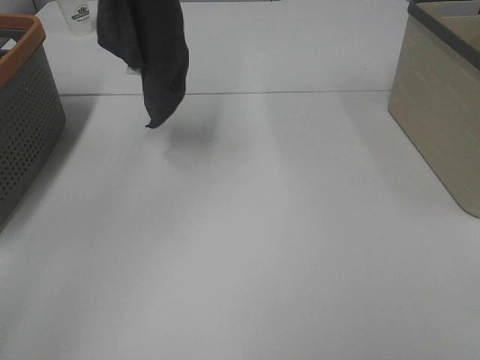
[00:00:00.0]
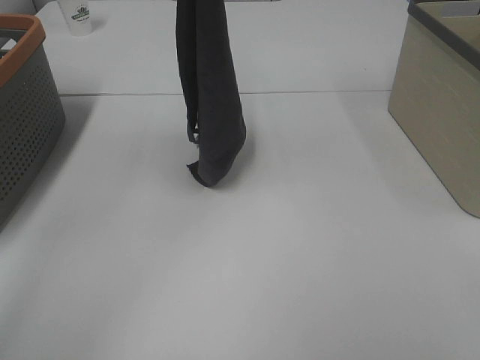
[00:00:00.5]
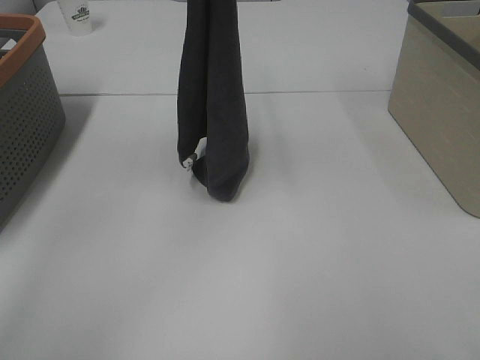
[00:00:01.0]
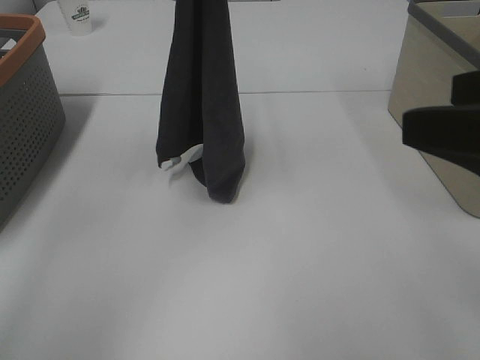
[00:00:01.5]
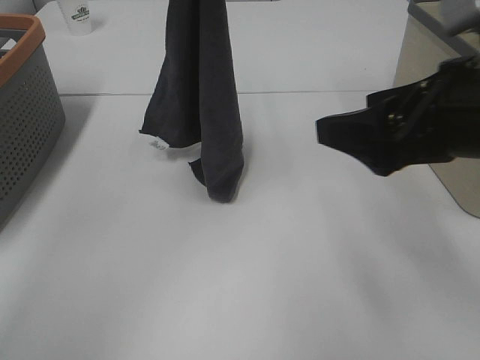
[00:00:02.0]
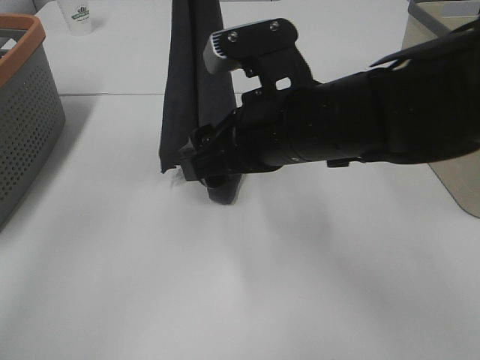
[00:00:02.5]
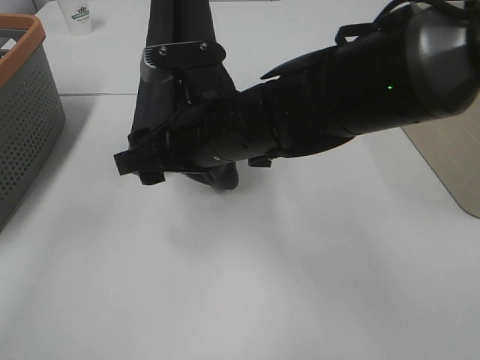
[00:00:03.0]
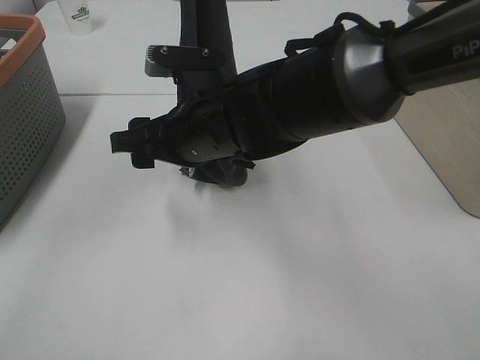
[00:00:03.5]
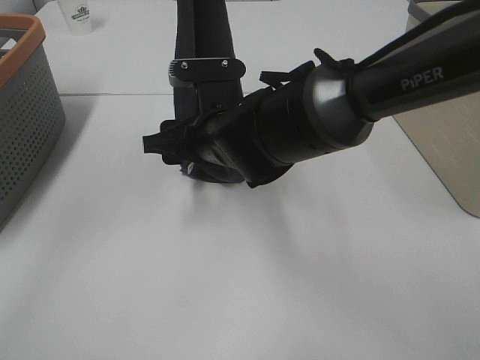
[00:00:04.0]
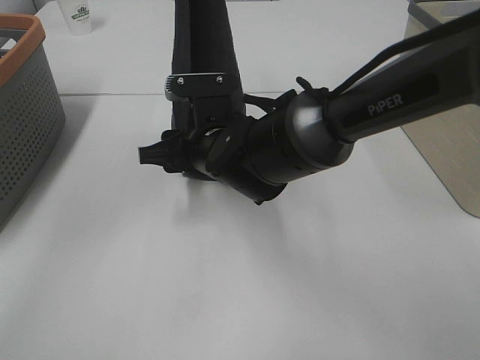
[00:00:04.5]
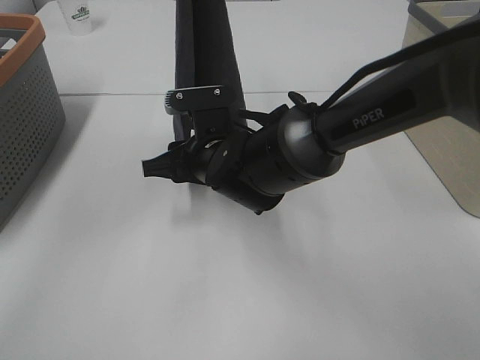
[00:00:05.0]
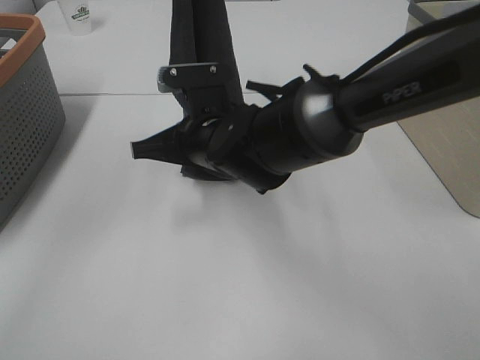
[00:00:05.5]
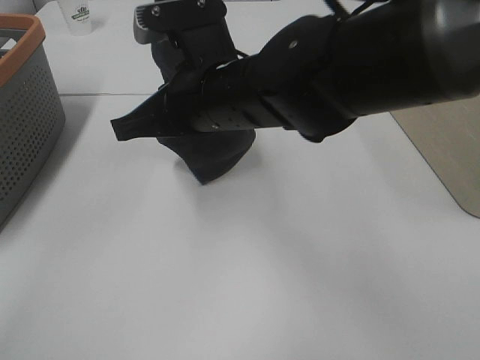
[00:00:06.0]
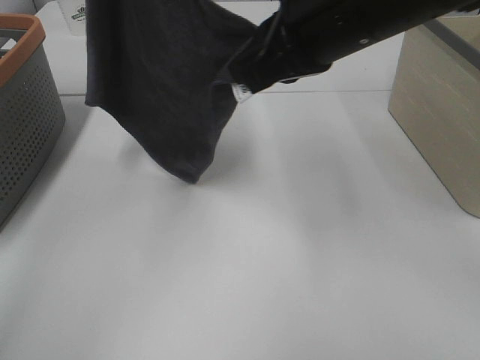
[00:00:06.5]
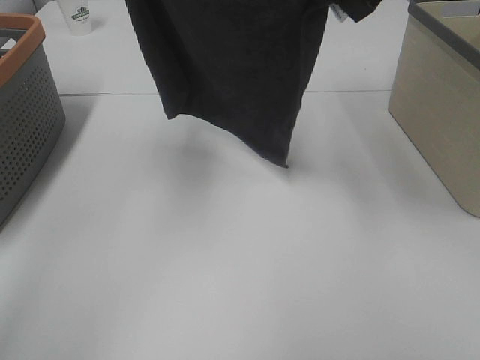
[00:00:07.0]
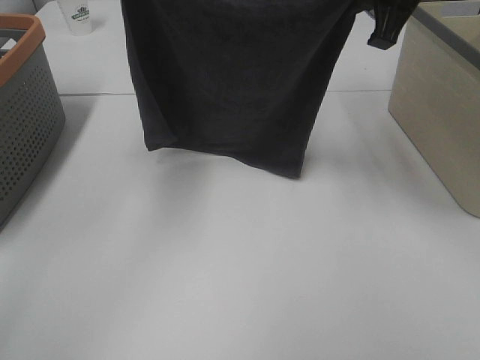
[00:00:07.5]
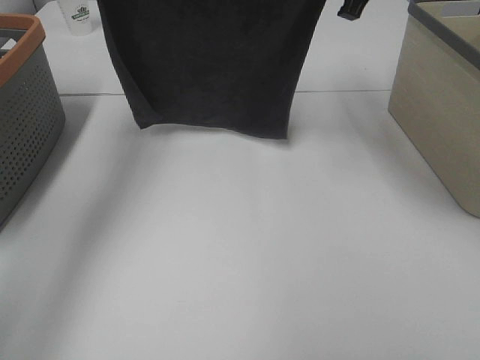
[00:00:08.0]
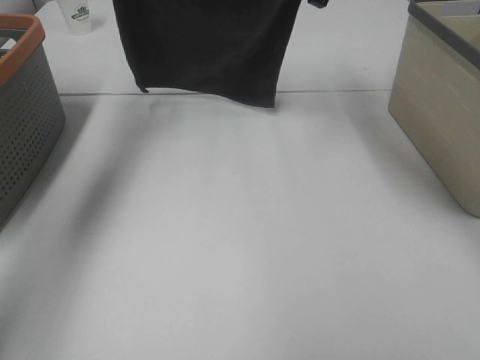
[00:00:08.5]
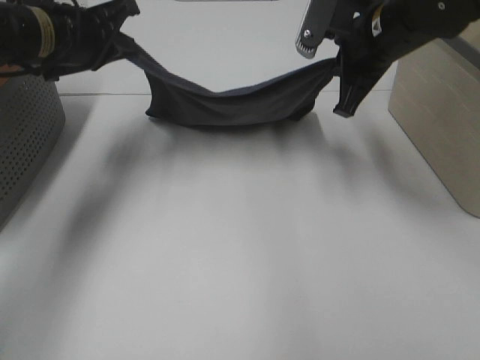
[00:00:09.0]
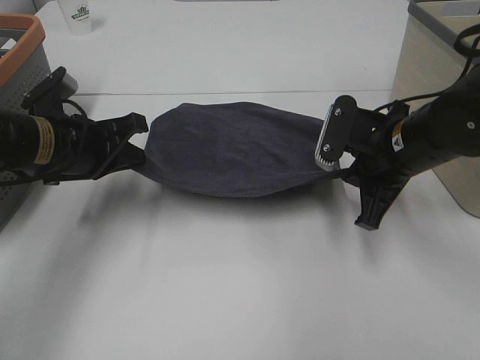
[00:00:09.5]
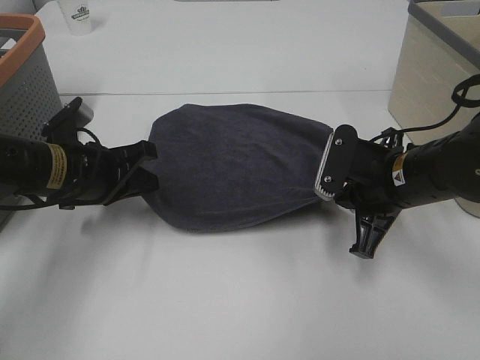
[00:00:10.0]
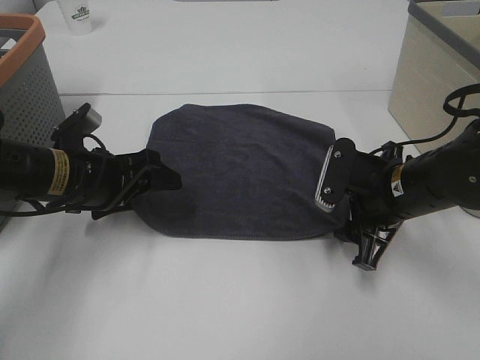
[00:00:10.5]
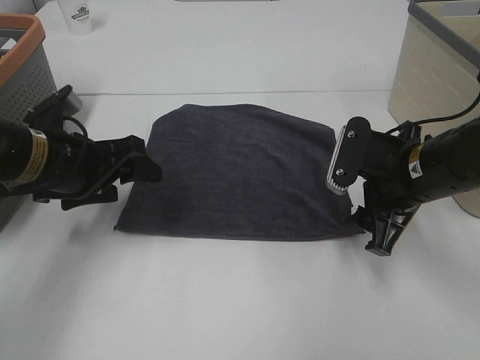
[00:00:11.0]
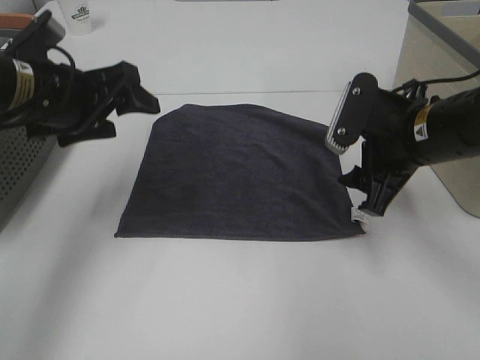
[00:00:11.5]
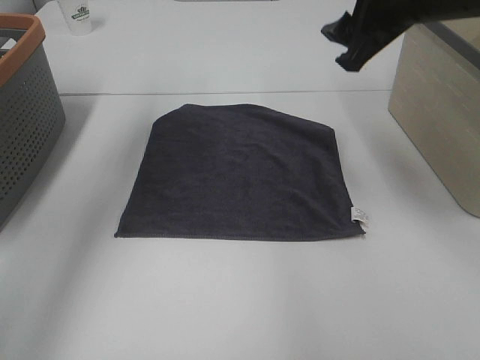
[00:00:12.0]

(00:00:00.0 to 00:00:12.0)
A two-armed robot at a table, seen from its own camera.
Task of the whole recording: Remove the towel and place it.
Step, 00:00:00.0 - 00:00:03.0: Right hand: grab a corner of the grey towel and straighten it.
Step, 00:00:03.5 - 00:00:05.5: Right hand: spread the grey towel flat on the table.
00:00:00.0 - 00:00:02.0: The right gripper heads forward and to the left, covering roughly 25 cm. Meanwhile the left gripper is displaced downward and to the right by some 10 cm.
00:00:02.0 - 00:00:04.0: The right gripper is displaced to the left, forward and downward by roughly 25 cm.
00:00:04.0 - 00:00:06.0: The right gripper heads upward, covering approximately 10 cm, and closes.
00:00:06.0 - 00:00:08.0: The right gripper heads to the right, forward and upward, covering about 25 cm. Meanwhile the left gripper shifts roughly 15 cm downward, to the left and forward.
00:00:08.0 - 00:00:10.0: Both grippers travel together downward and backward, roughly 25 cm.
00:00:10.0 - 00:00:12.0: Both grippers travel together upward, approximately 20 cm. The left gripper opens its fingers. Meanwhile the right gripper opens.

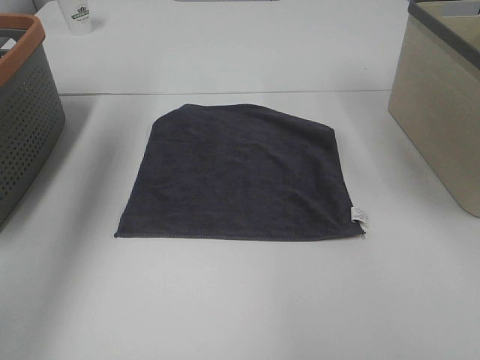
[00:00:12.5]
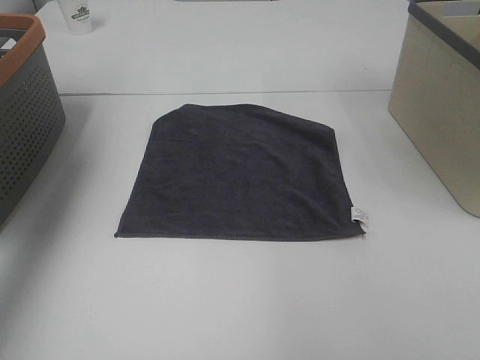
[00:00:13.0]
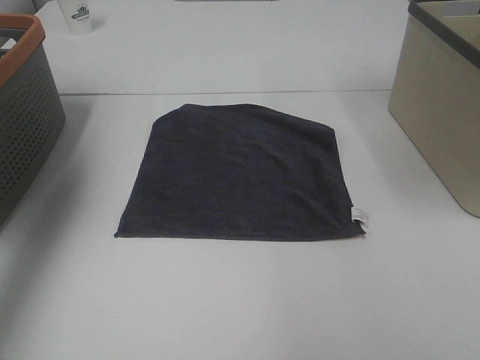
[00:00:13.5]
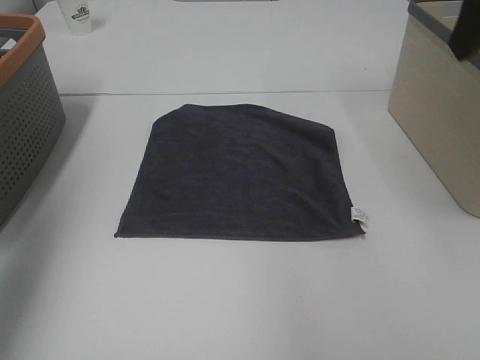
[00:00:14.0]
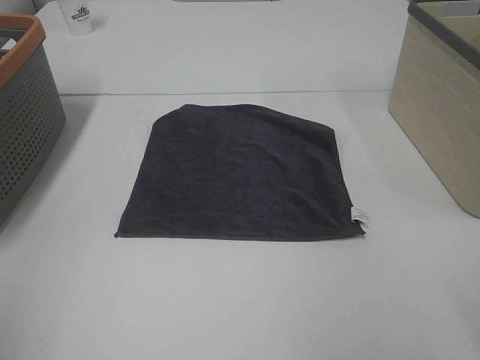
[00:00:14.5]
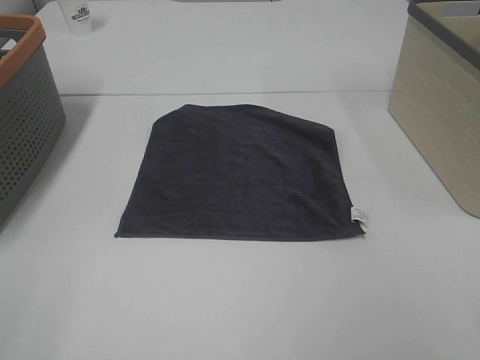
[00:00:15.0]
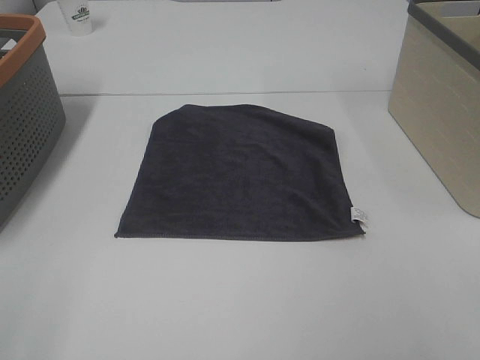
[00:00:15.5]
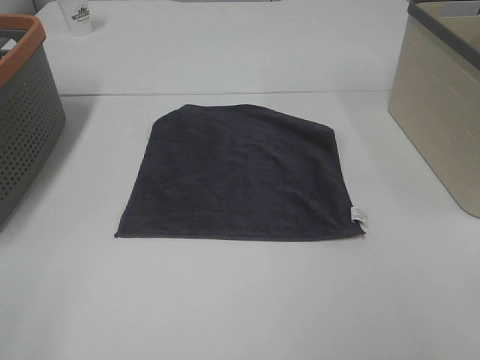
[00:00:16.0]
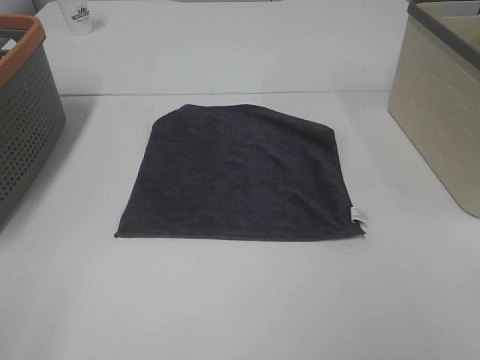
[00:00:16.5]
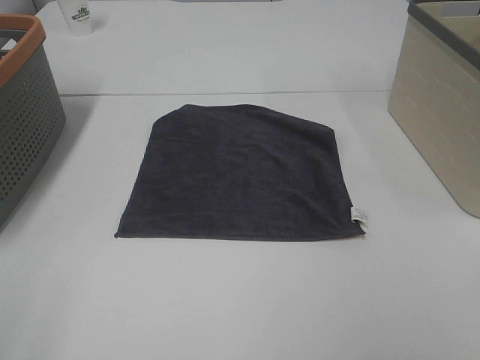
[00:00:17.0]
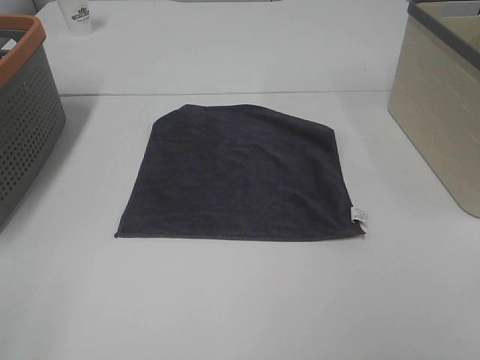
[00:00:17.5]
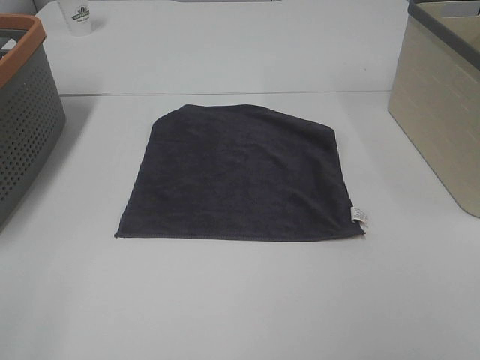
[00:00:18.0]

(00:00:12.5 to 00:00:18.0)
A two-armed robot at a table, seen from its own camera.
Task of the whole recording: Remove the towel and place it.
00:00:12.5 - 00:00:14.5: The right gripper is displaced backward and to the right by approximately 25 cm; the left gripper goes approximately 35 cm backward.
